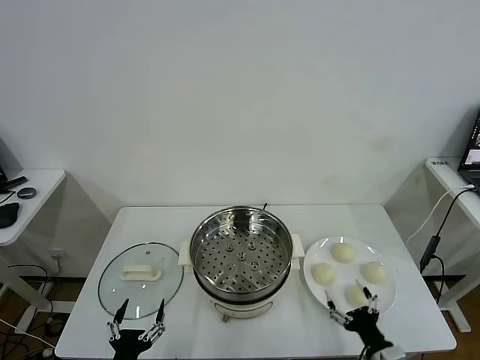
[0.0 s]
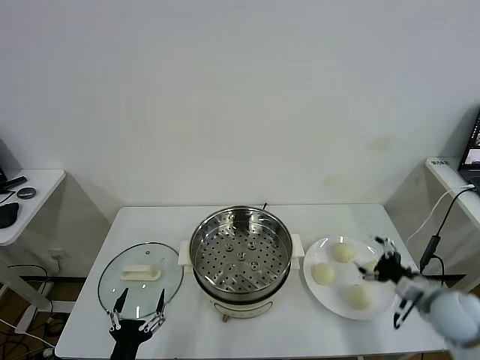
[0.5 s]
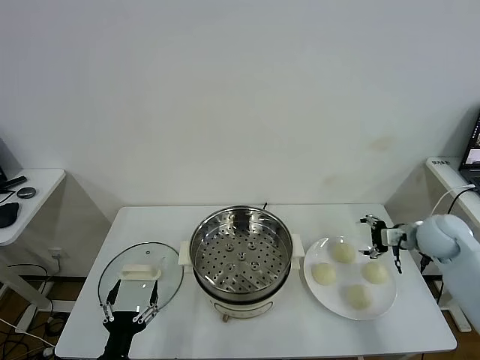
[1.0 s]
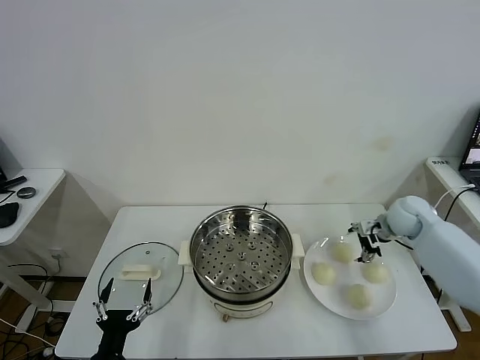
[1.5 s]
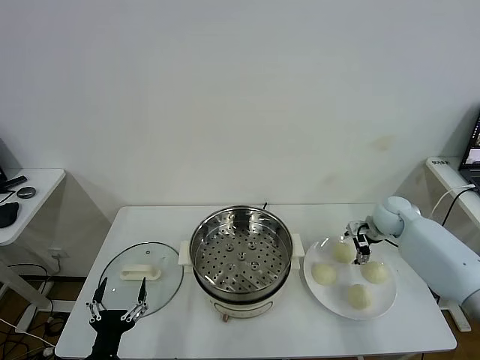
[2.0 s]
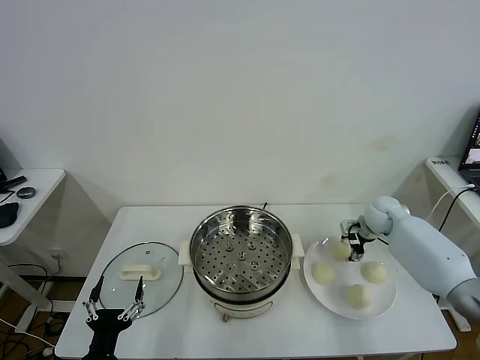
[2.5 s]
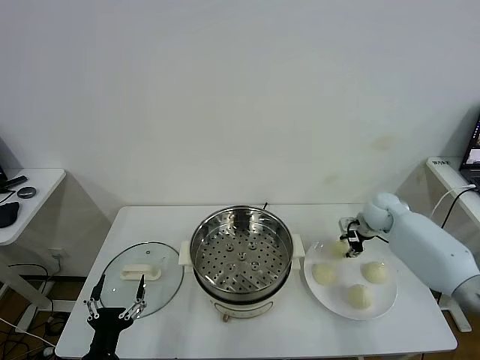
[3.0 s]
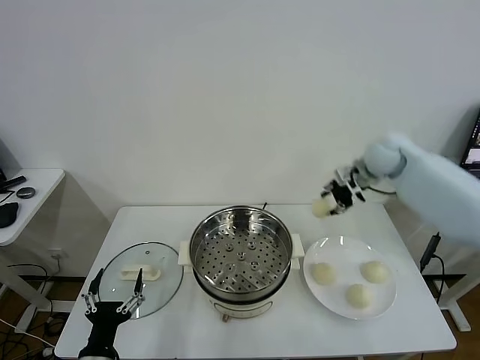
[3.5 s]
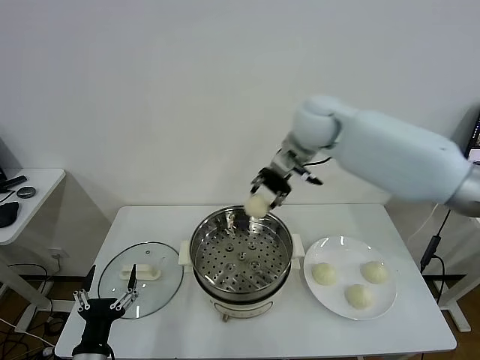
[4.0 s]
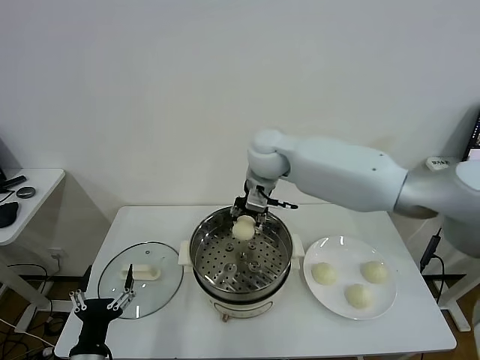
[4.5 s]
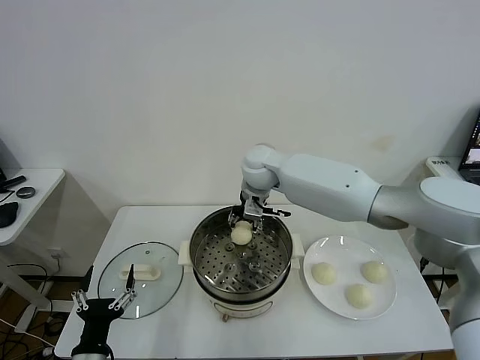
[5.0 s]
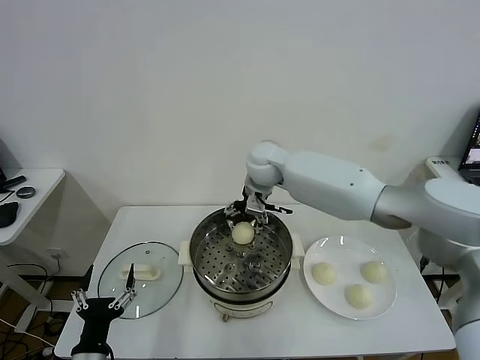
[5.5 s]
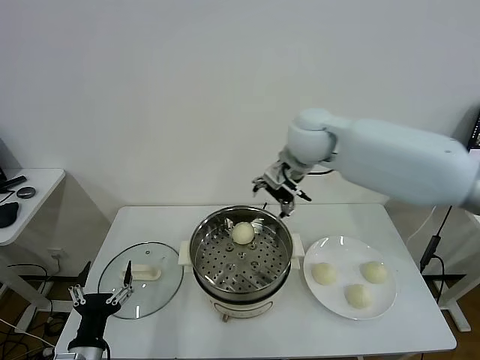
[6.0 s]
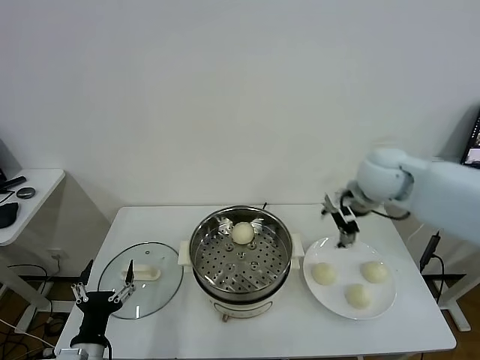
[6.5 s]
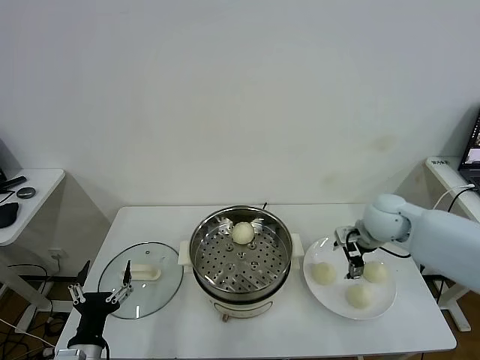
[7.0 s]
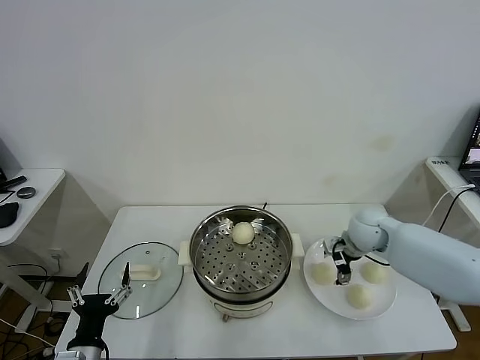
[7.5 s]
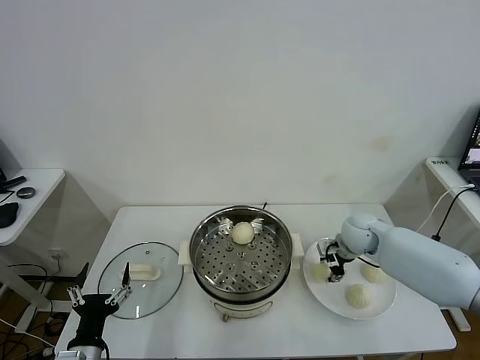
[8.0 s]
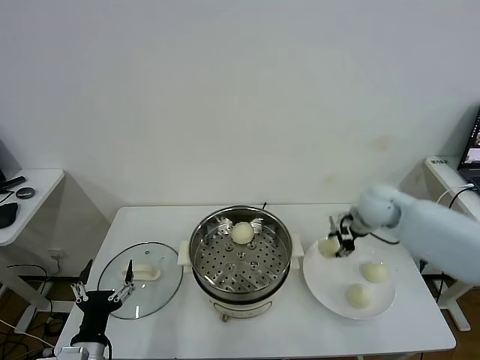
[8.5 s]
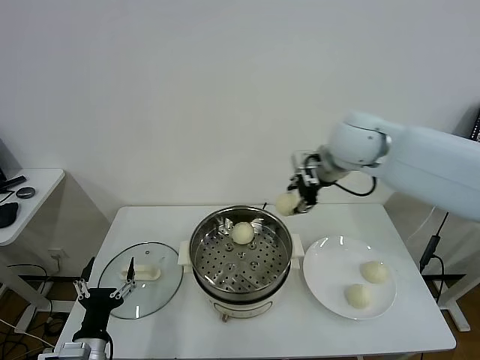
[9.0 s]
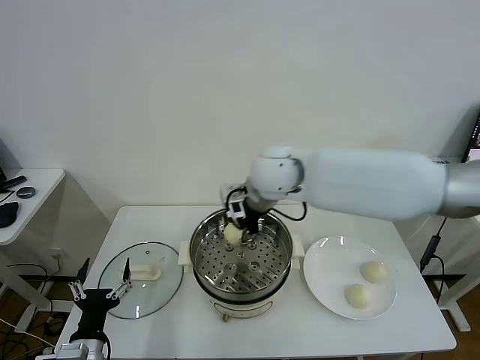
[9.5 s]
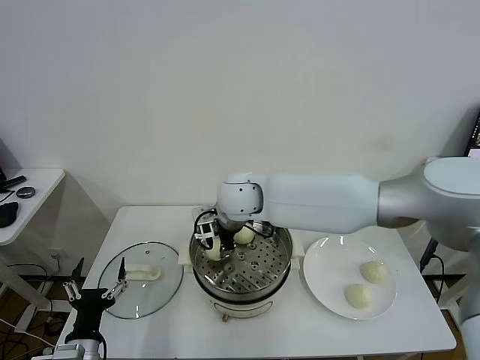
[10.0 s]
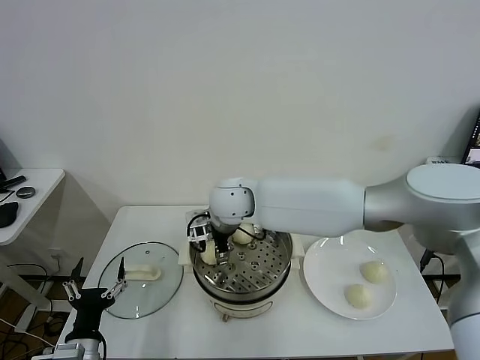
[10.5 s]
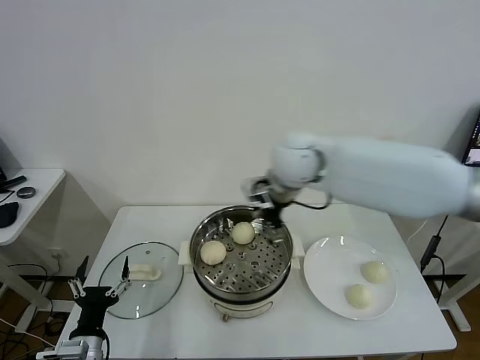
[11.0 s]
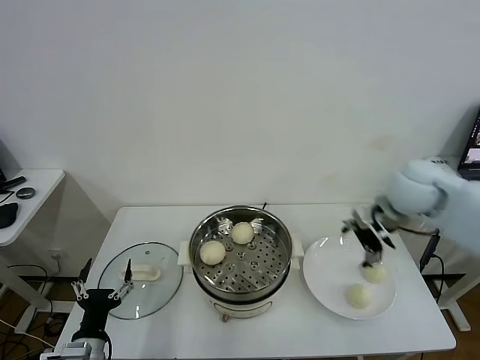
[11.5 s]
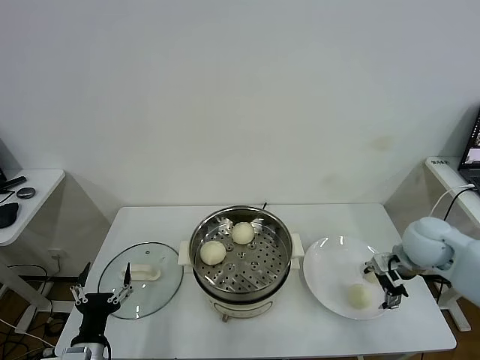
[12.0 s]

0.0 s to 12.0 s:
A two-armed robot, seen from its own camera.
Task of the whole recording: take steamed baozi put them in steamer.
Step, 0.0 to 2.5 s: Grasp the baozi in the plate with right gripper.
Step, 3.0 to 5.0 s: Place the baozi on the steamer with right gripper.
Step, 5.5 to 8.0 s: Grasp the baozi in the plate with right gripper.
Step, 8.5 to 10.5 s: Place the baozi on the steamer with right gripper.
2.0 to 4.0 s: The right gripper moves to the left and upward, roughly 35 cm, and closes its fingers.
4.0 to 6.0 s: The right gripper goes roughly 5 cm to the right, and opens its fingers.
6.0 to 8.0 s: The right gripper moves downward and to the right, roughly 30 cm, and closes its fingers.
8.0 to 10.0 s: The right gripper travels to the left and upward by approximately 35 cm.
10.0 to 12.0 s: The right gripper goes roughly 40 cm to the right, and opens.

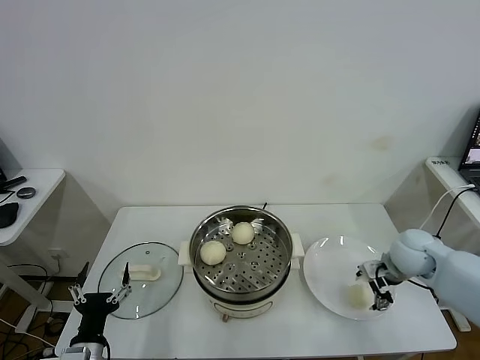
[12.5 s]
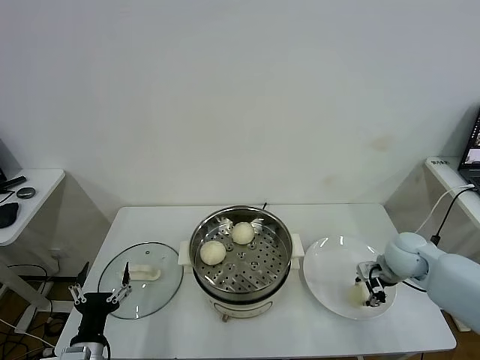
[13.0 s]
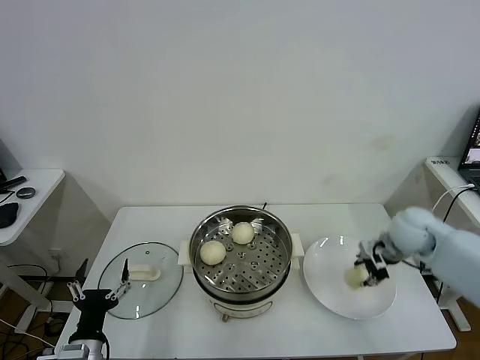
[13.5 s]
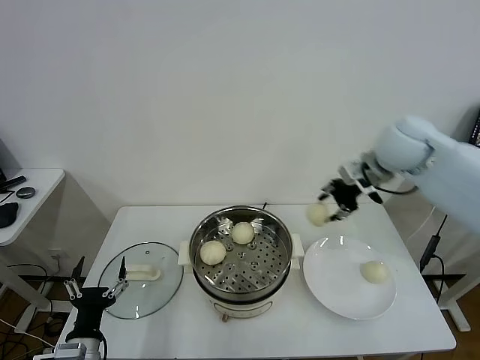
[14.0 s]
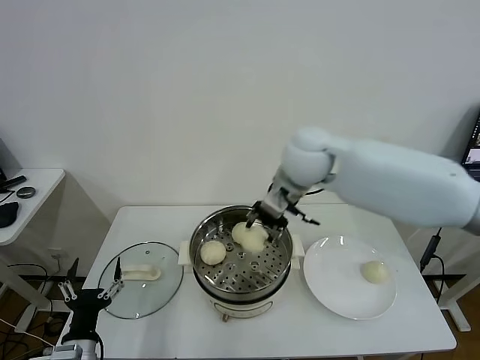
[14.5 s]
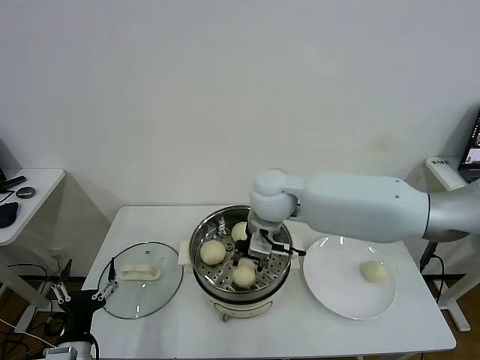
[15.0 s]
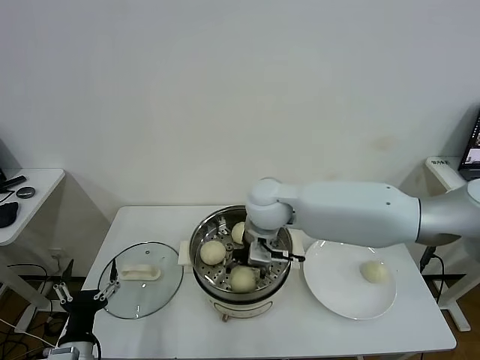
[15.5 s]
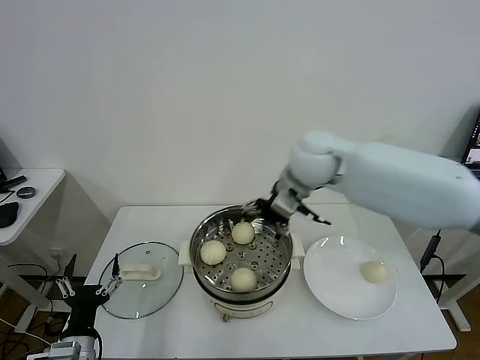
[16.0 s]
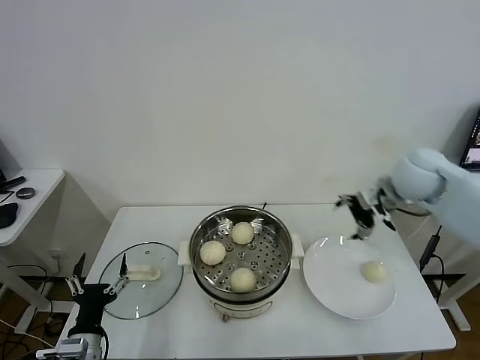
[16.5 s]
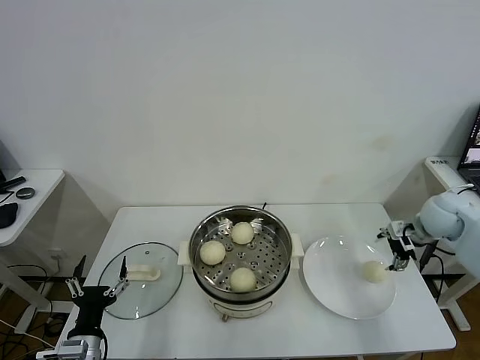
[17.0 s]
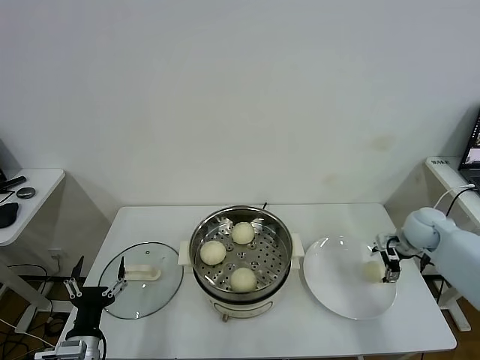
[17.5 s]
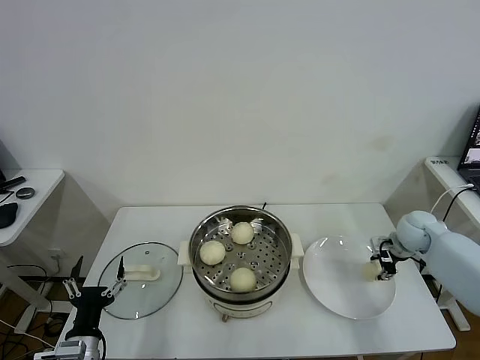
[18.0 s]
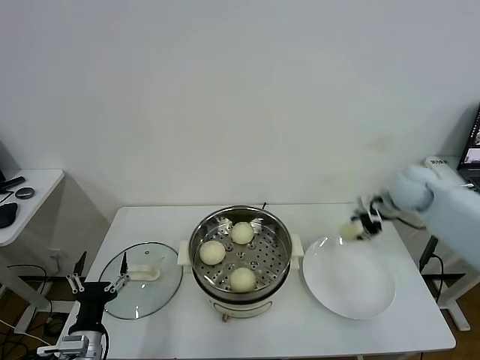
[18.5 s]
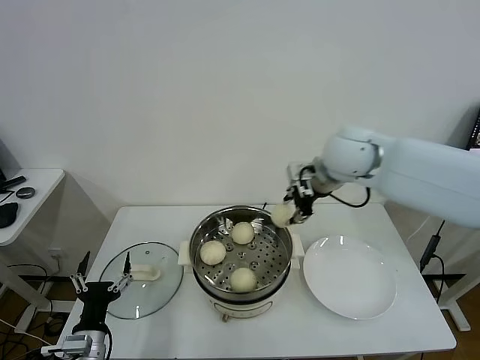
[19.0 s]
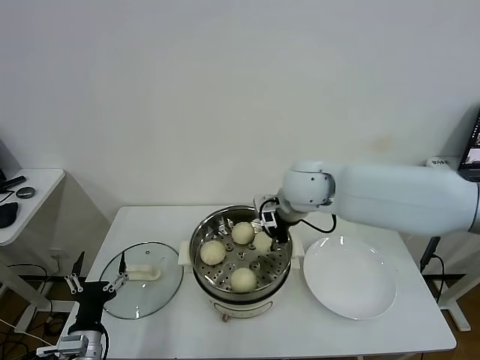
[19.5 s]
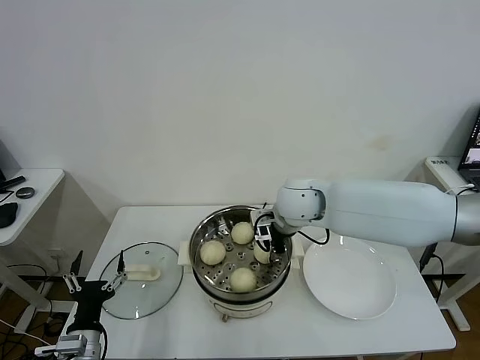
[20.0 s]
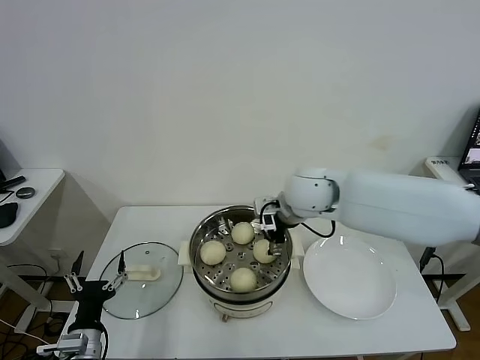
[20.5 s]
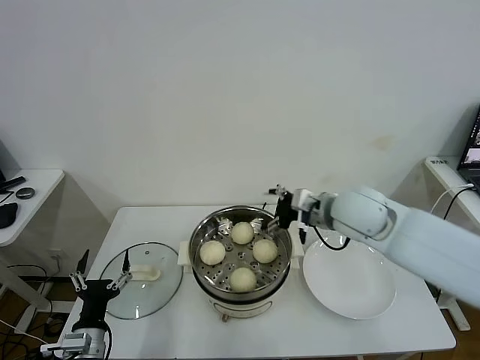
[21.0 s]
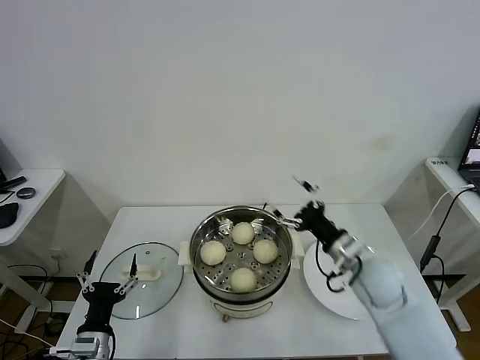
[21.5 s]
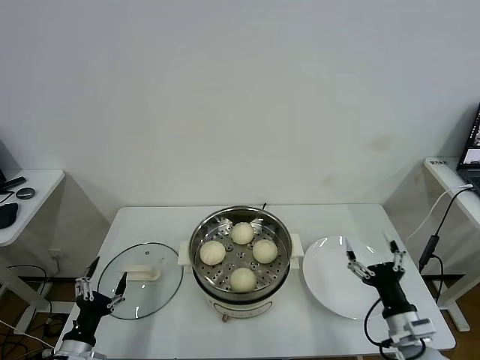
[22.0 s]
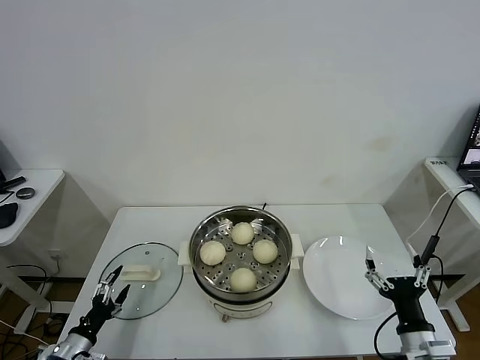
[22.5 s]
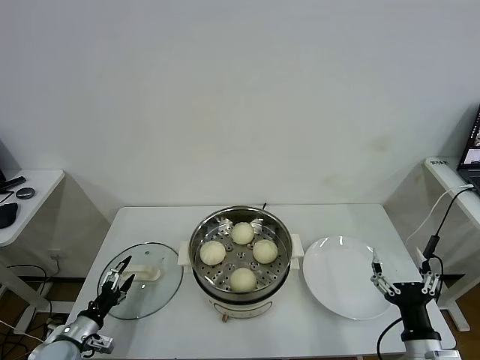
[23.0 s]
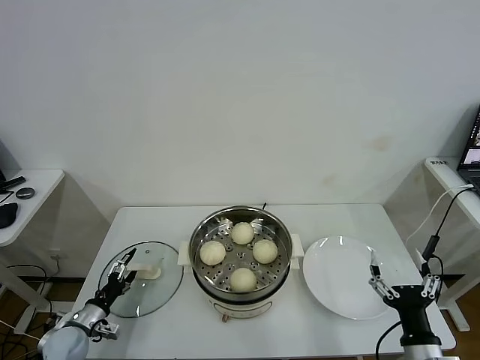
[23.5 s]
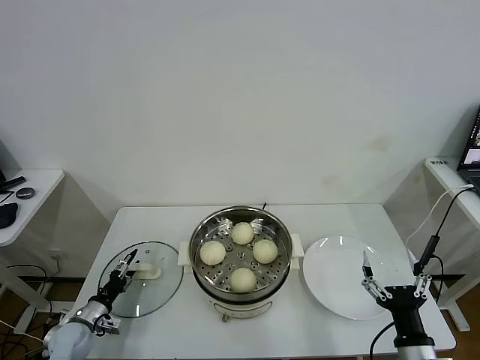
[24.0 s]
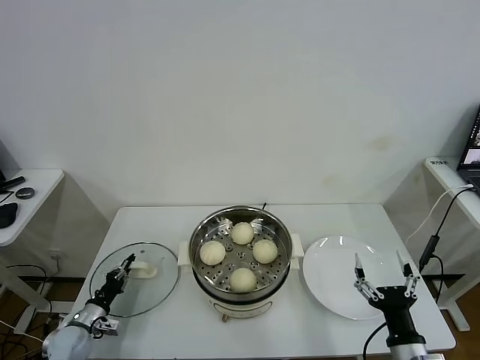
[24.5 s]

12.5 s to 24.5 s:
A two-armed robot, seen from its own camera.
Task of the whole recording: take steamed baozi put them in steamer.
Step, 13.5 to 15.5 s: Place the baozi on the steamer with right gripper.
Step, 16.0 to 17.5 s: Grasp the baozi in the plate with right gripper.
Step, 18.5 to 20.5 s: Place the baozi on the steamer with right gripper.
12.5 to 14.5 s: The right gripper travels to the left and upward by approximately 35 cm, and closes its fingers.
14.5 to 16.5 s: The right gripper goes approximately 25 cm to the right, and opens its fingers.
16.5 to 18.5 s: The right gripper travels downward and back again, approximately 15 cm each way, and closes its fingers.
18.5 to 20.5 s: The right gripper moves to the left, about 25 cm, and opens its fingers.
20.5 to 22.5 s: The left gripper is displaced to the left and downward by some 10 cm; the right gripper heads backward, downward and to the right, covering about 40 cm.
22.5 to 24.5 s: The left gripper is displaced forward by some 10 cm, and closes its fingers.

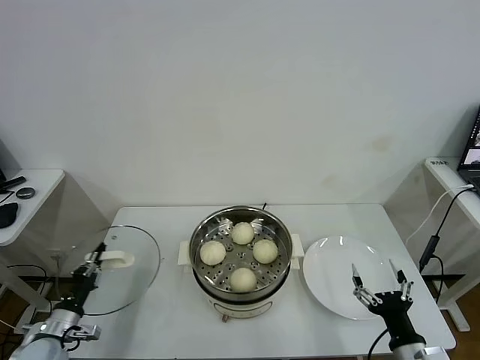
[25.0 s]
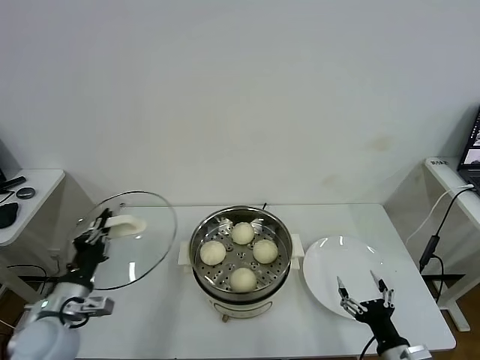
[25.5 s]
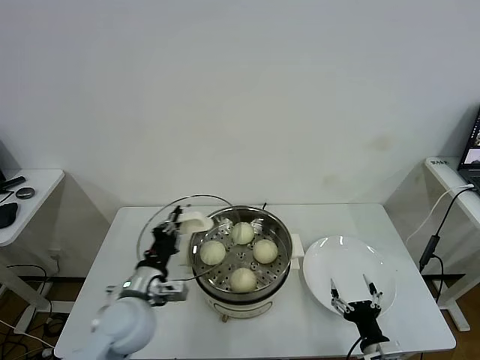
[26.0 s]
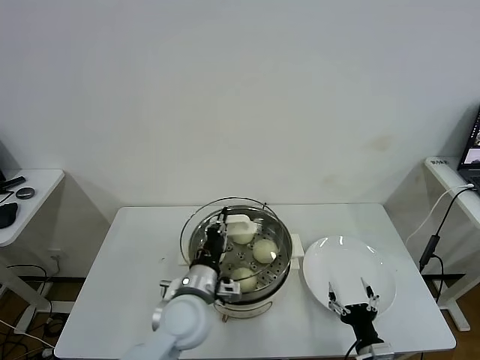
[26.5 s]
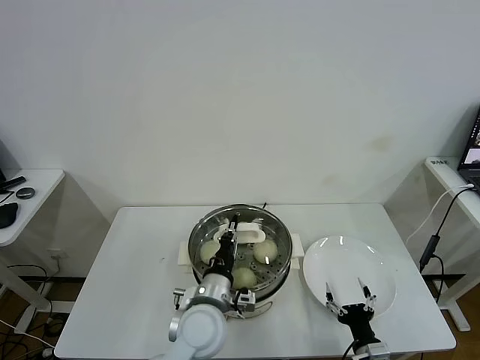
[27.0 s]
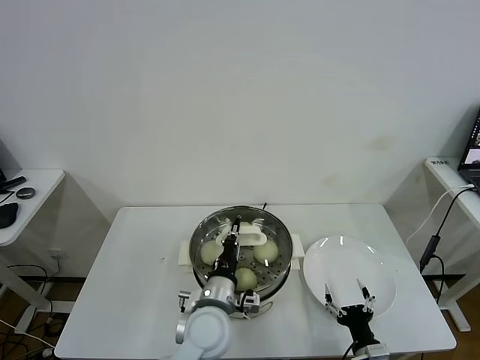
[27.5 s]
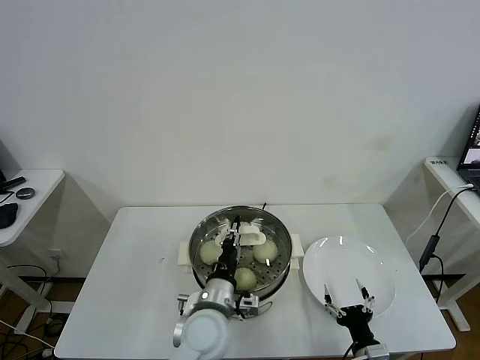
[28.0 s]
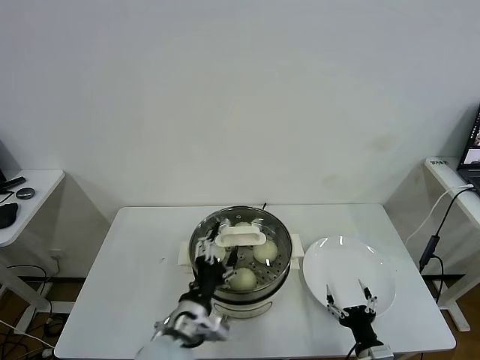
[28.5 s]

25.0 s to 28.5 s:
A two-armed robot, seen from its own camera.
Task of the whole recording: take steamed baozi put them in steamer.
Step, 25.0 to 28.5 s: Place the pot lid on the steamer with left gripper.
25.0 to 27.0 s: The right gripper heads downward, covering roughly 10 cm. The left gripper heads to the right, covering approximately 35 cm.
27.0 to 28.5 s: The left gripper is displaced backward by approximately 5 cm, and opens up.
